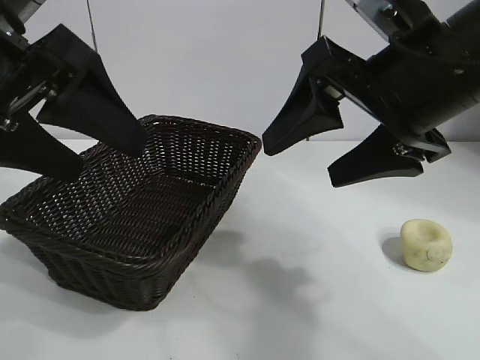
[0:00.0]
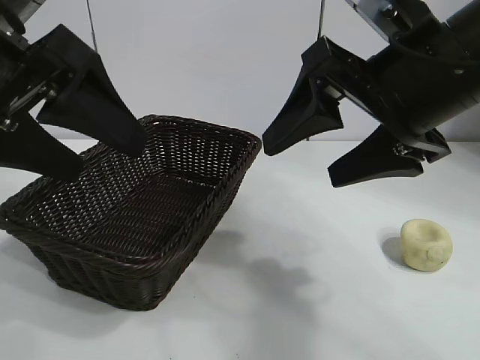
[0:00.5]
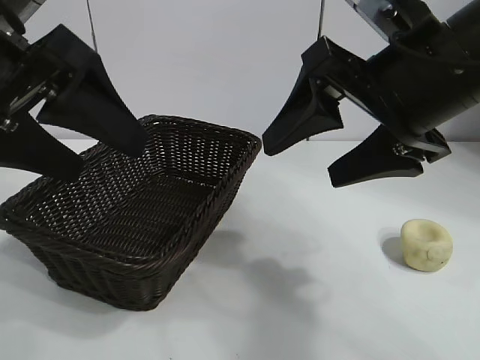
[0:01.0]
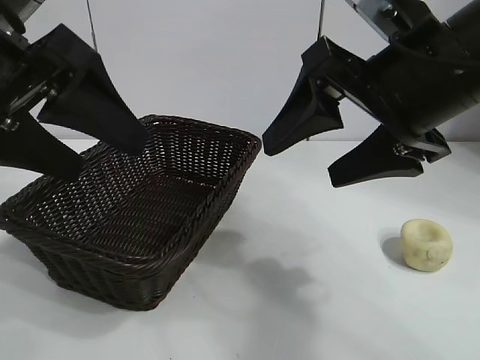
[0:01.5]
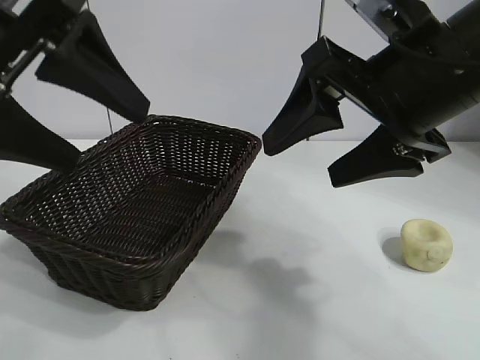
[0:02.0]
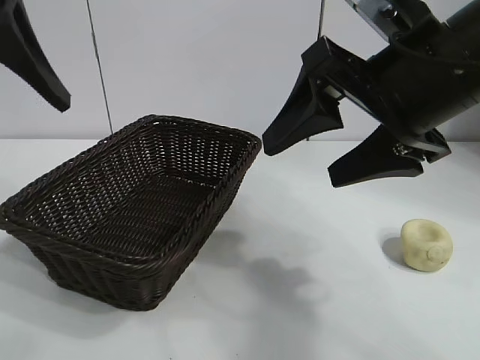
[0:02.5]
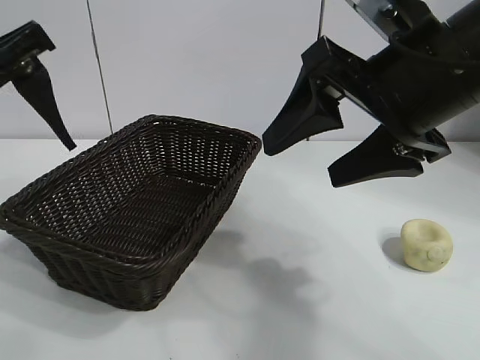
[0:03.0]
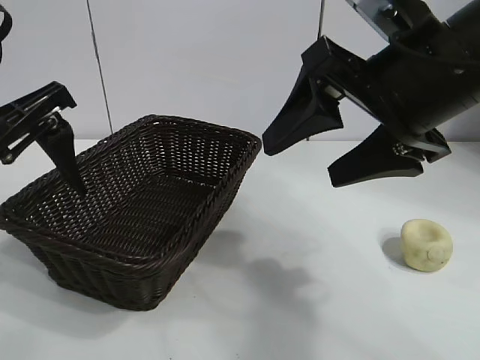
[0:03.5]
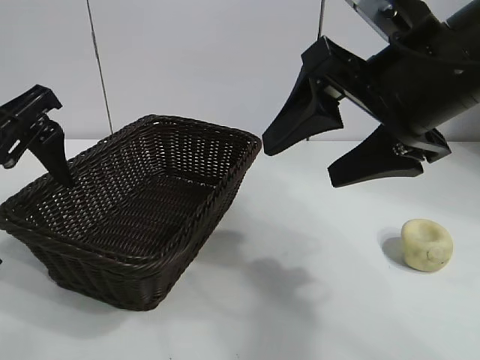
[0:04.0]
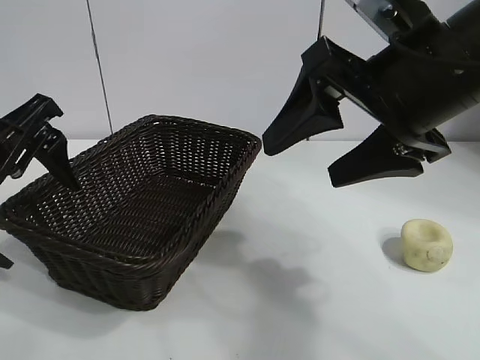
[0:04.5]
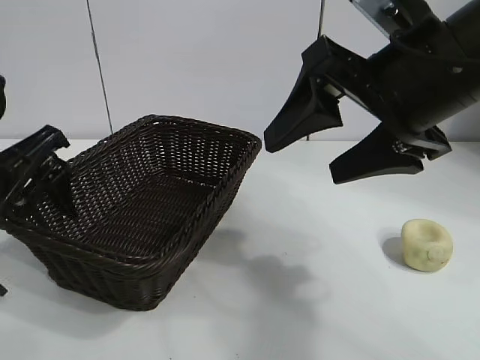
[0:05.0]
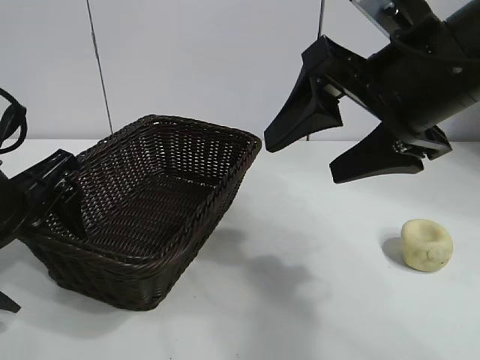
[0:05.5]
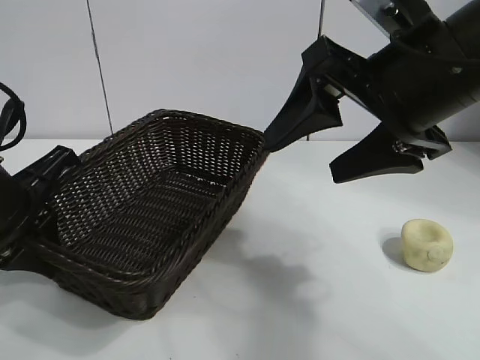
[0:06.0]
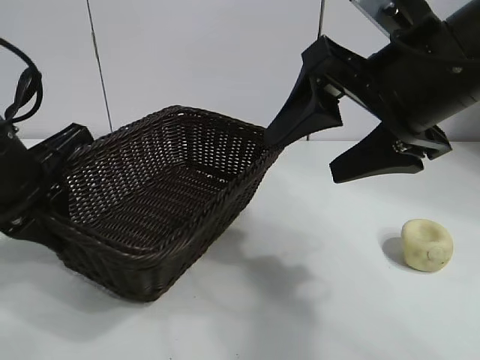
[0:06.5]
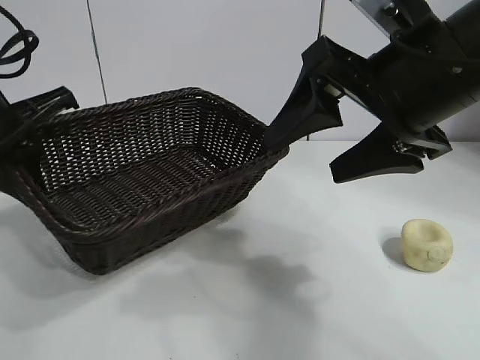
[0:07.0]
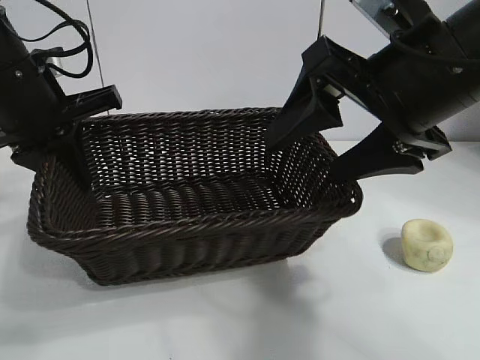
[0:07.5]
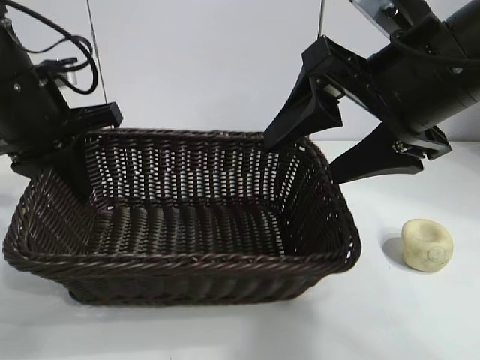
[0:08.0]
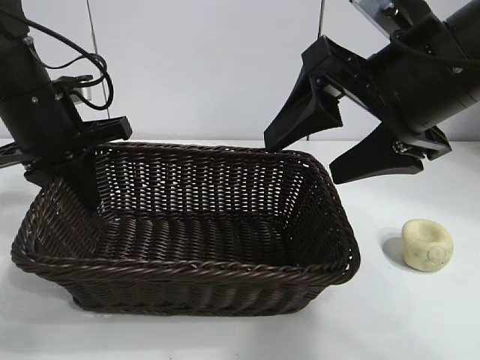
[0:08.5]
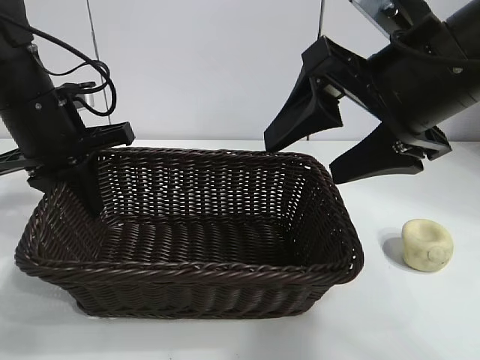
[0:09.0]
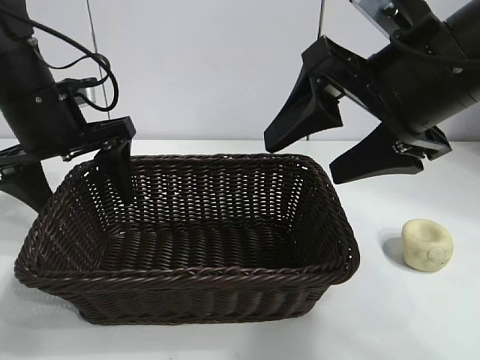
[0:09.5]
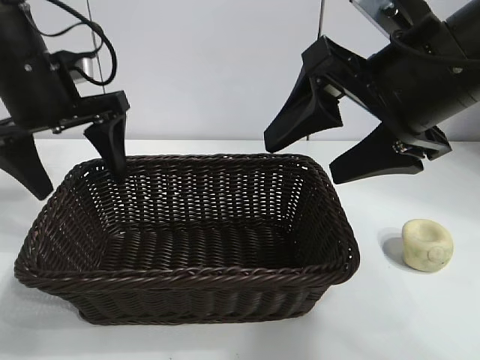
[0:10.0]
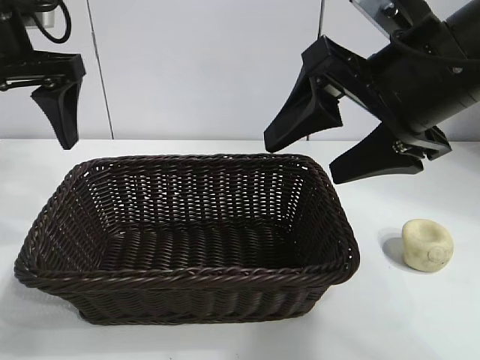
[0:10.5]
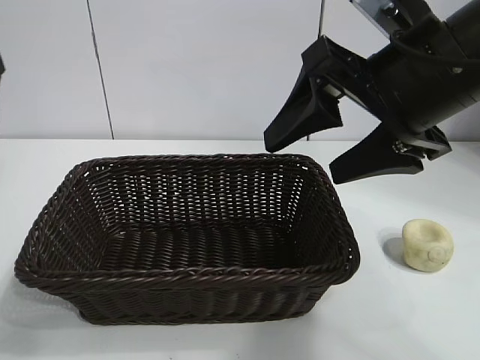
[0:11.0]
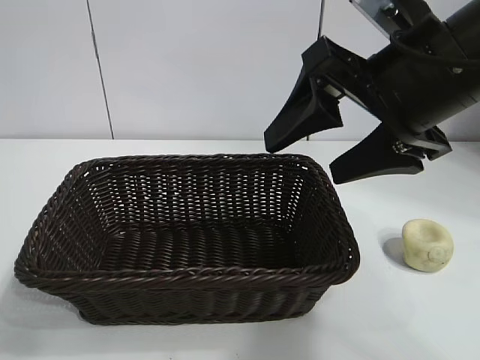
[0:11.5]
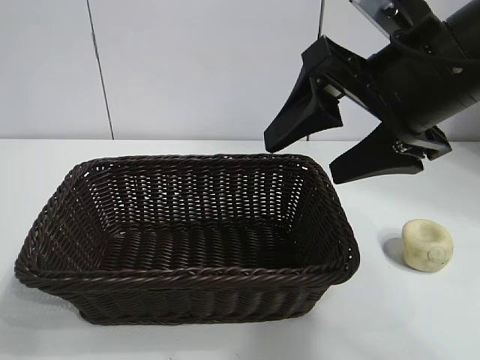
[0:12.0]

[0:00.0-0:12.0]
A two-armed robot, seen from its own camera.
Task of the whole recording: pick up the egg yolk pastry and put it into the basket.
Step, 0:02.0 to 0:05.5: Grasp the basket with left gripper.
Step, 0:06.5 to 0:09.0: Place the basket in the center of view with left gripper.

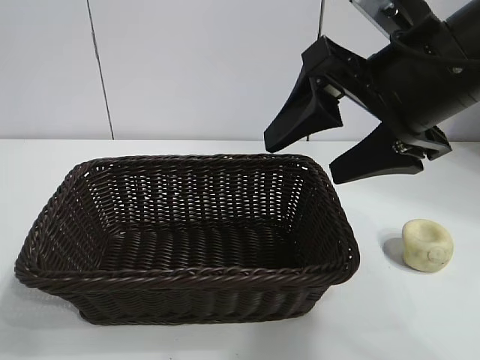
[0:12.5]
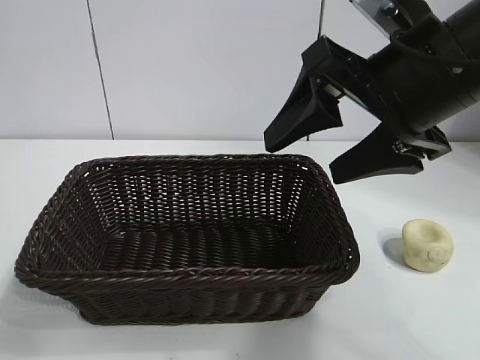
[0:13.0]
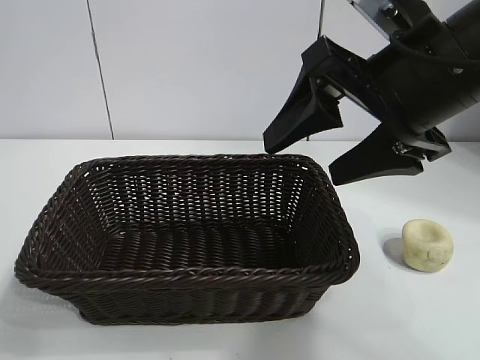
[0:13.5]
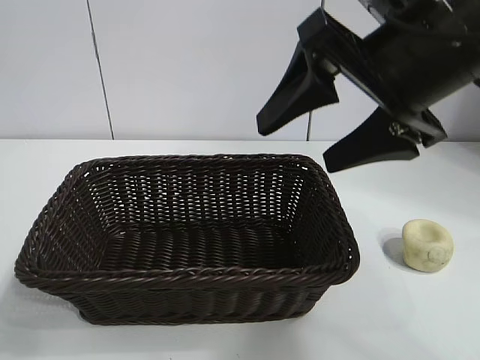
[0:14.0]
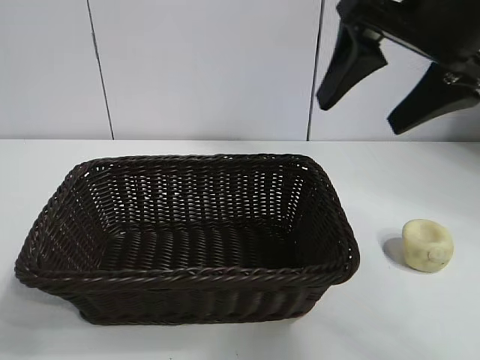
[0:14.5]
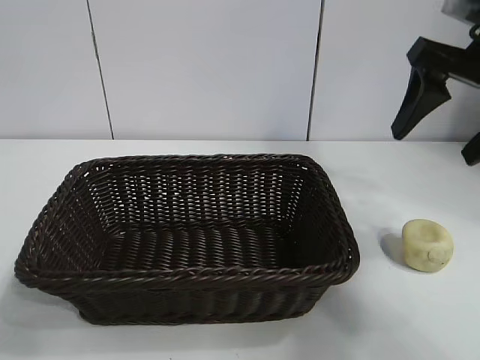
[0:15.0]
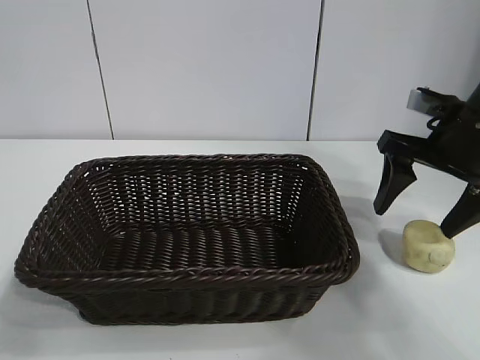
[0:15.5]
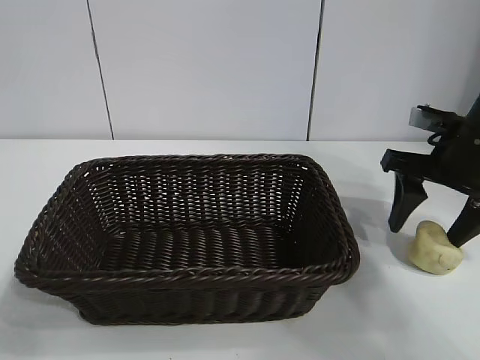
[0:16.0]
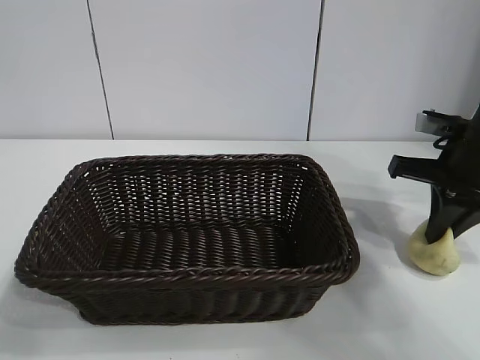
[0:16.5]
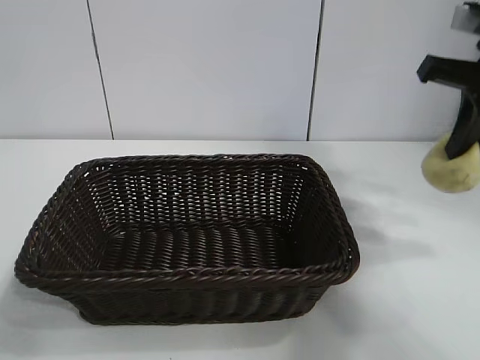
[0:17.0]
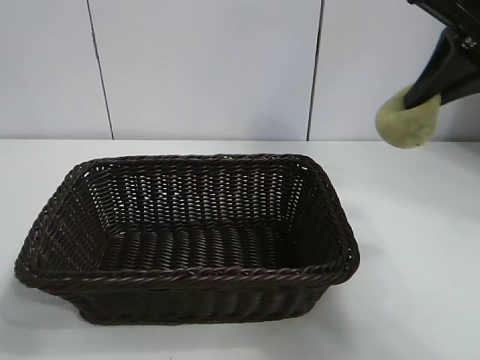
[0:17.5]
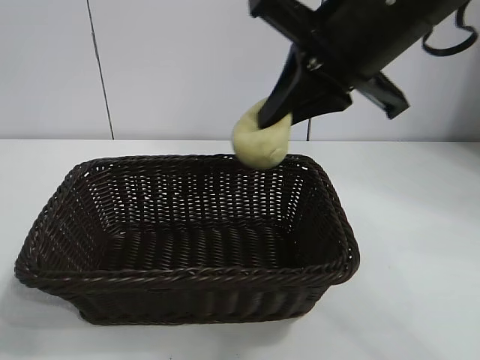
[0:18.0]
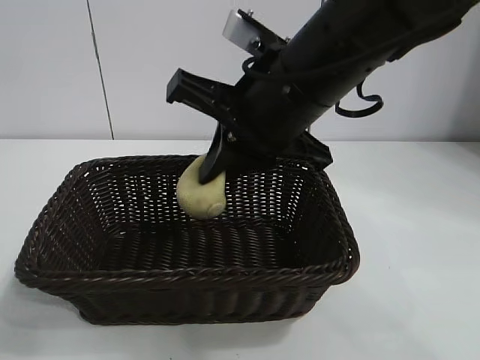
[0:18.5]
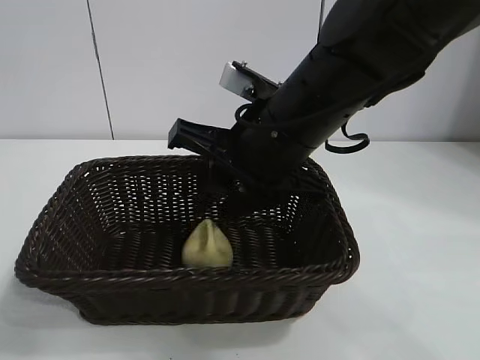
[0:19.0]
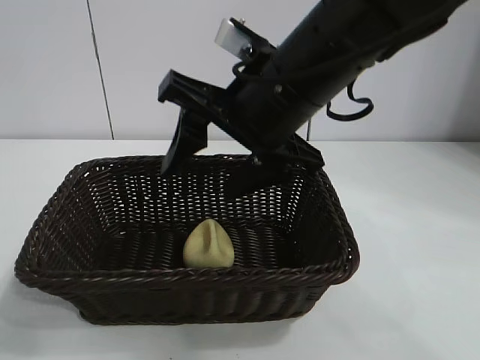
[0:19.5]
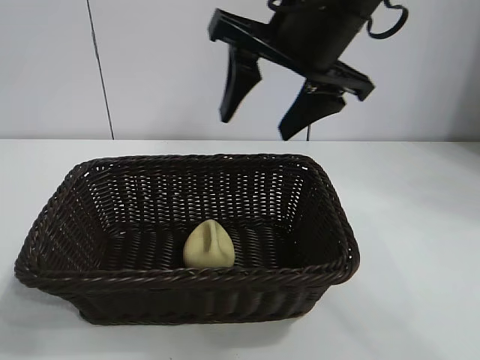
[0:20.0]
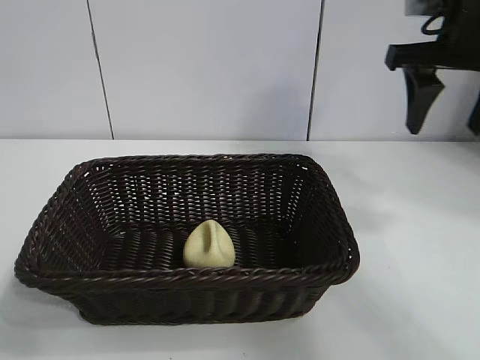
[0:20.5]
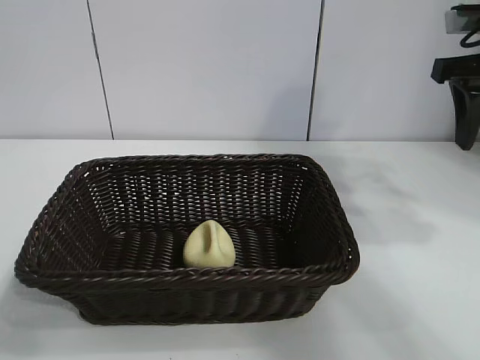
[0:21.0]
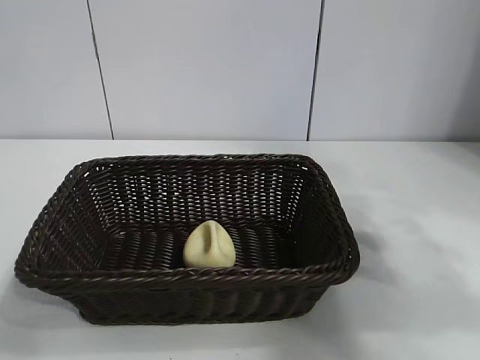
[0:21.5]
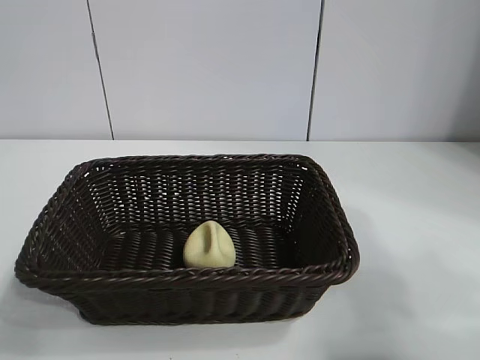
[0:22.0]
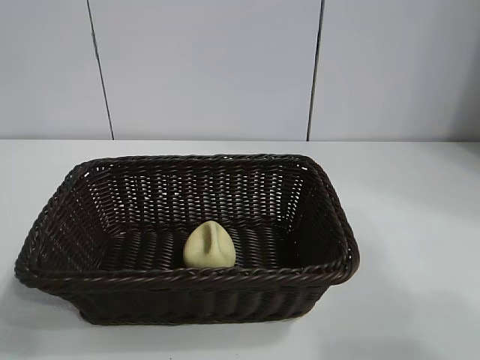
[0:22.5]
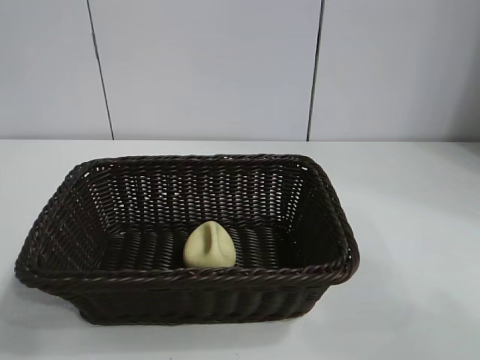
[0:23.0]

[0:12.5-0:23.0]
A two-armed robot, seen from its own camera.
Task of the whole recording: pick up the egg yolk pastry and put it into the basket.
Step, 0:12.5 to 0:16.5: Grasp egg yolk pastry with right gripper.
Step, 0:17.0 to 0:19.0: Place the egg yolk pastry in the basket with right gripper.

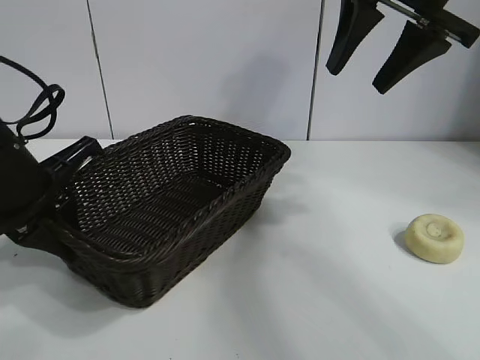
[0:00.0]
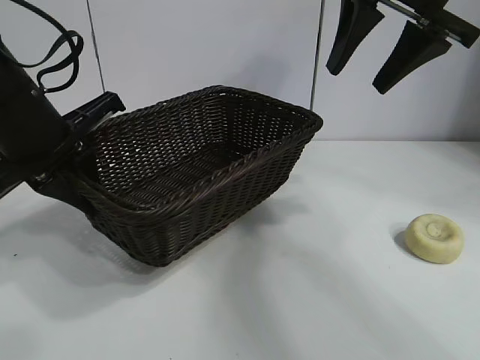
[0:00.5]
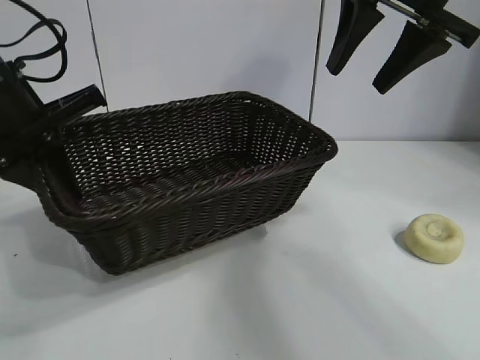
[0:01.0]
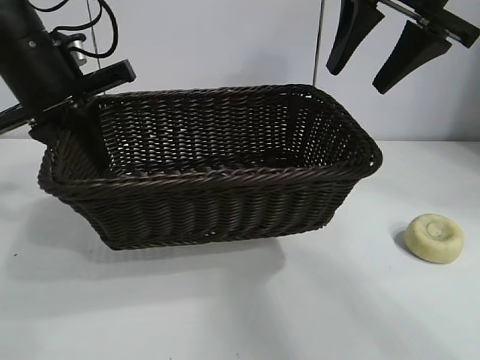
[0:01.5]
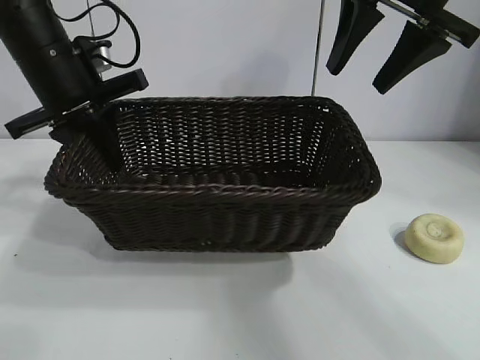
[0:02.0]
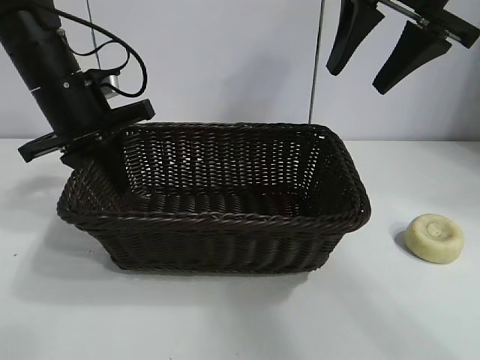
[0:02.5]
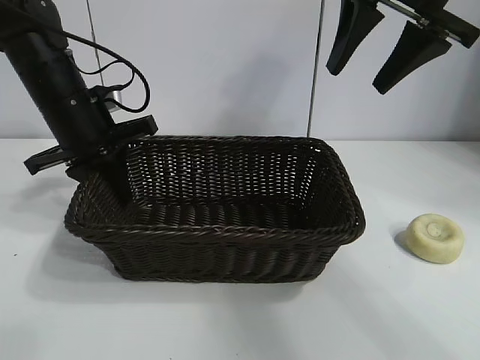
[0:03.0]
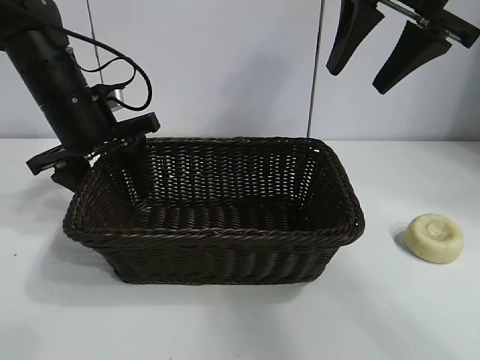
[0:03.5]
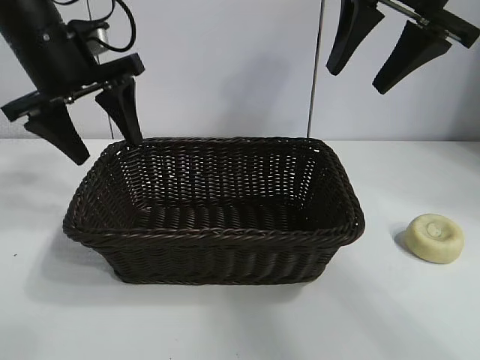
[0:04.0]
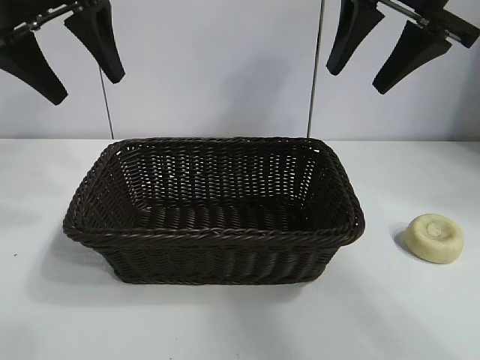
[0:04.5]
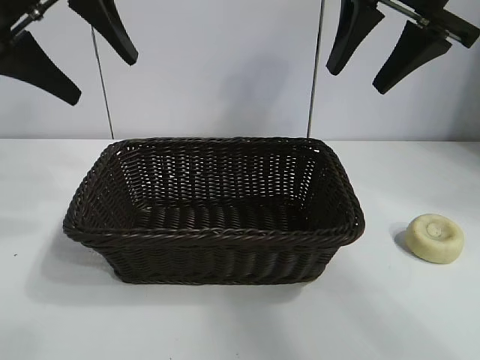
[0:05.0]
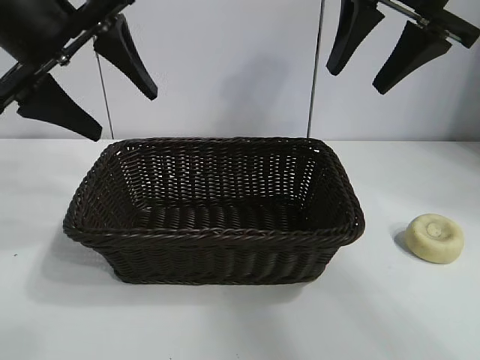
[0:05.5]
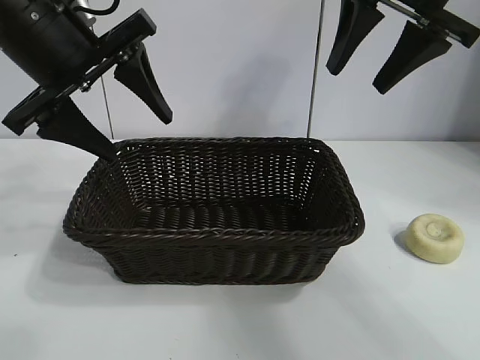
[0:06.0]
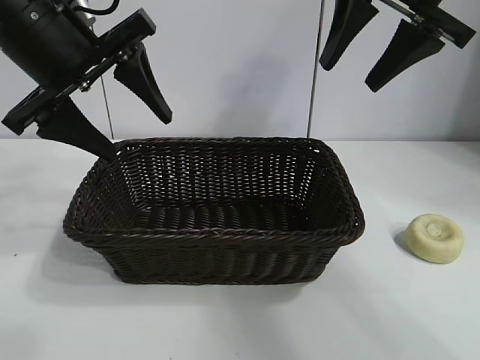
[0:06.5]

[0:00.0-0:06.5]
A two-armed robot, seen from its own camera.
Task of the whole recording: pick up the egg yolk pastry and put it into the basket.
Step, 0:00.0 to 0:03.0: Place the basket in the center of view with left gripper.
